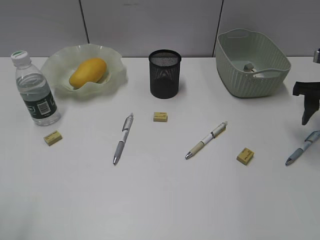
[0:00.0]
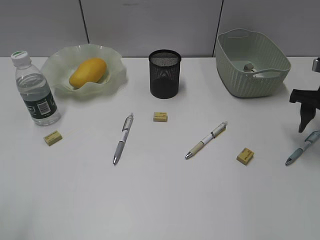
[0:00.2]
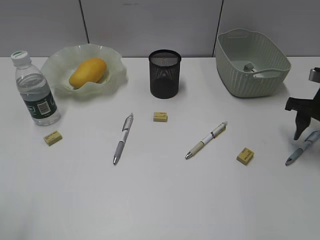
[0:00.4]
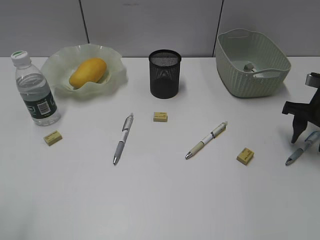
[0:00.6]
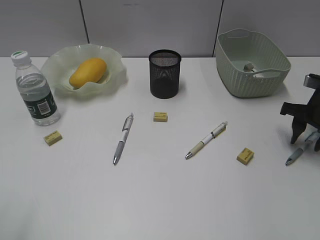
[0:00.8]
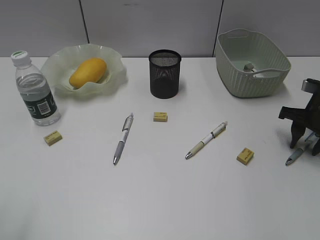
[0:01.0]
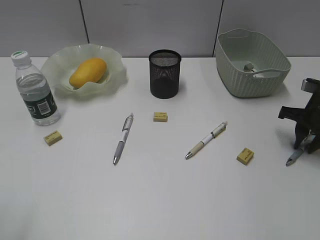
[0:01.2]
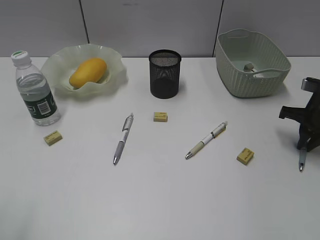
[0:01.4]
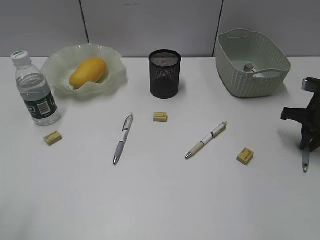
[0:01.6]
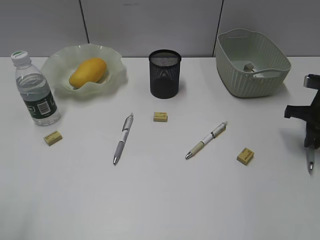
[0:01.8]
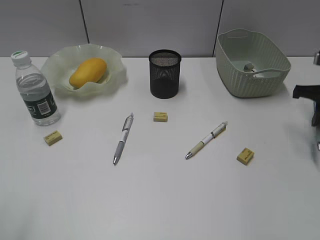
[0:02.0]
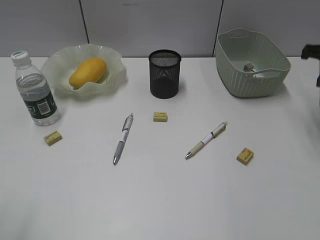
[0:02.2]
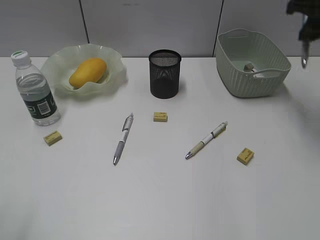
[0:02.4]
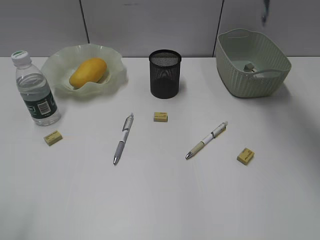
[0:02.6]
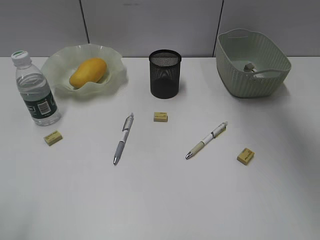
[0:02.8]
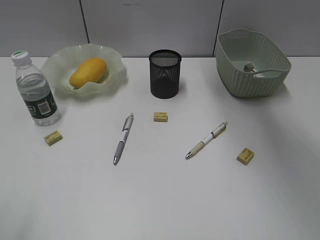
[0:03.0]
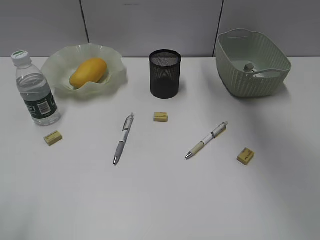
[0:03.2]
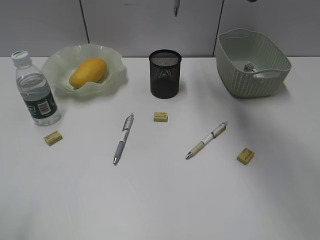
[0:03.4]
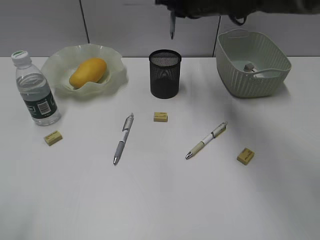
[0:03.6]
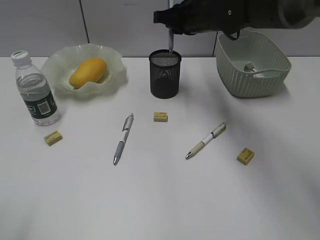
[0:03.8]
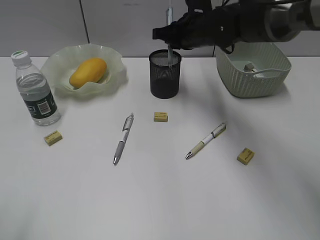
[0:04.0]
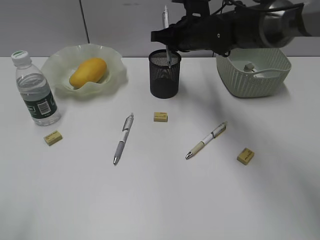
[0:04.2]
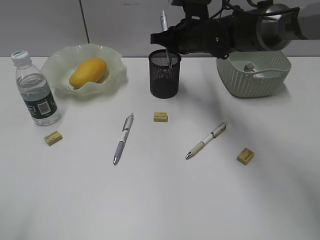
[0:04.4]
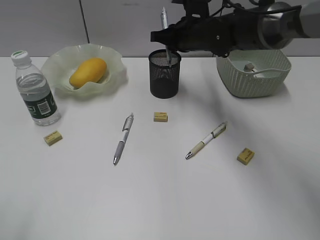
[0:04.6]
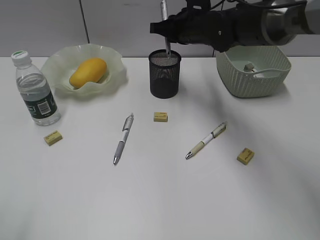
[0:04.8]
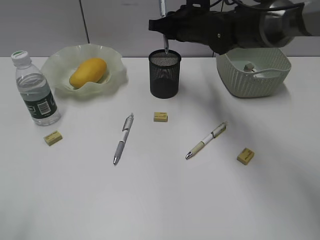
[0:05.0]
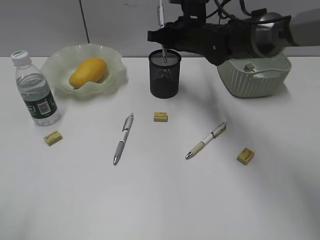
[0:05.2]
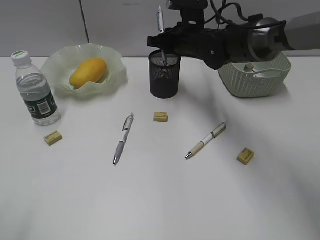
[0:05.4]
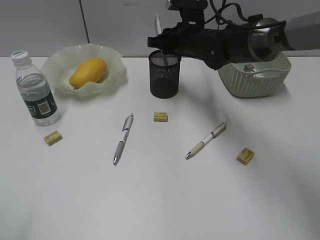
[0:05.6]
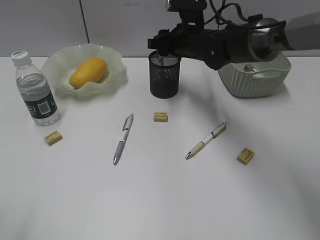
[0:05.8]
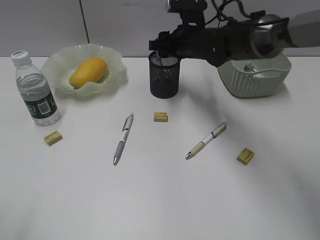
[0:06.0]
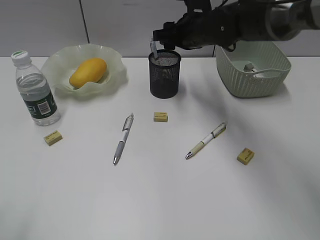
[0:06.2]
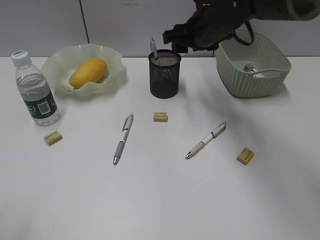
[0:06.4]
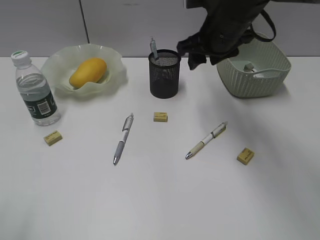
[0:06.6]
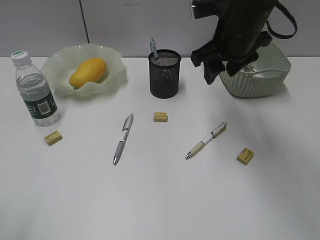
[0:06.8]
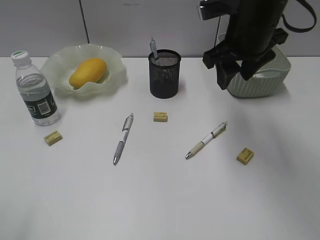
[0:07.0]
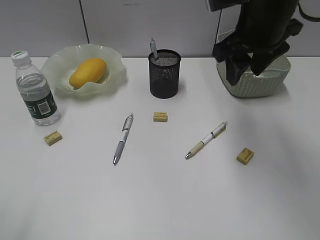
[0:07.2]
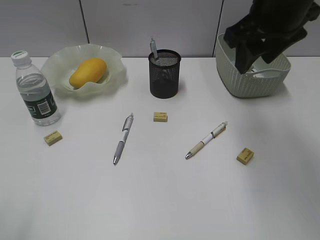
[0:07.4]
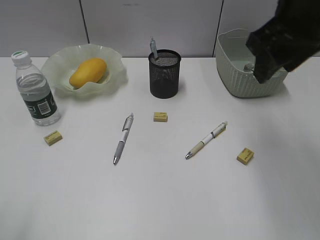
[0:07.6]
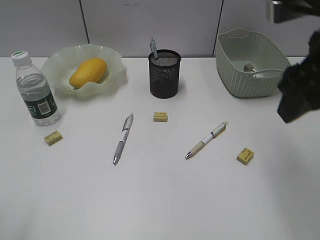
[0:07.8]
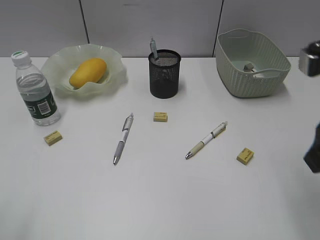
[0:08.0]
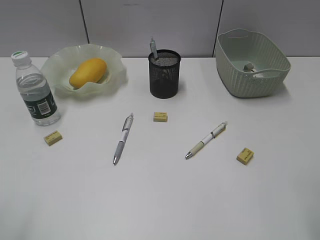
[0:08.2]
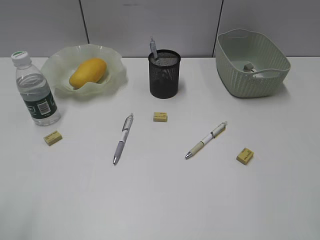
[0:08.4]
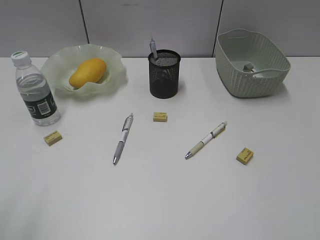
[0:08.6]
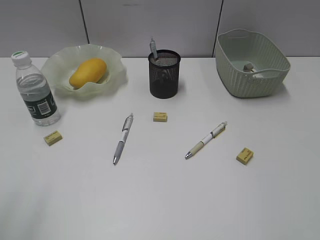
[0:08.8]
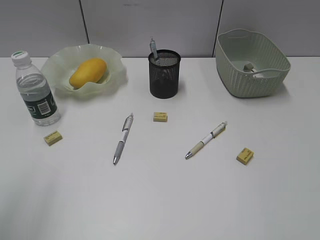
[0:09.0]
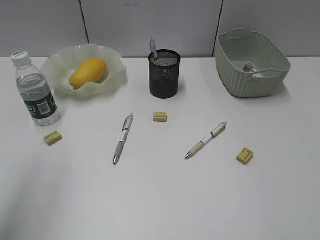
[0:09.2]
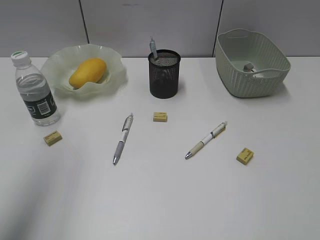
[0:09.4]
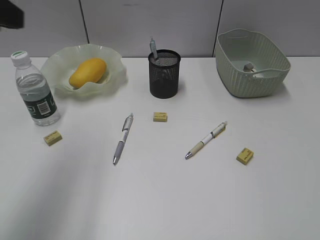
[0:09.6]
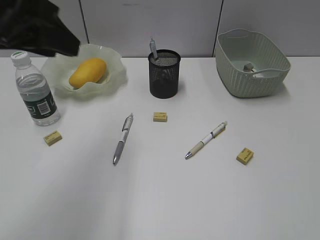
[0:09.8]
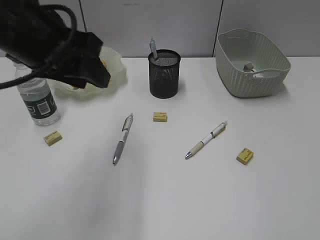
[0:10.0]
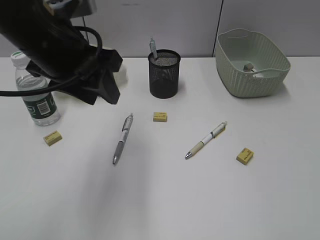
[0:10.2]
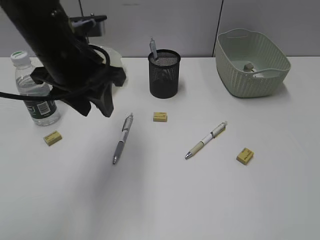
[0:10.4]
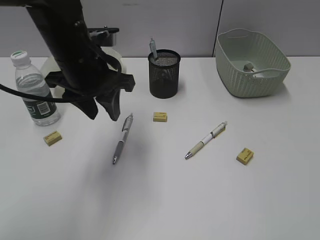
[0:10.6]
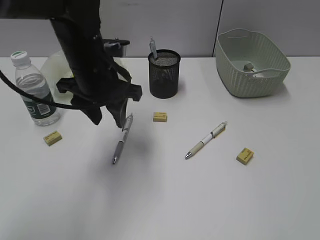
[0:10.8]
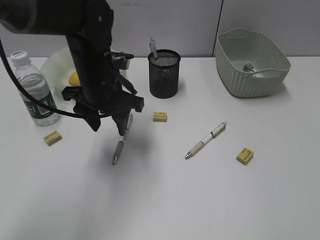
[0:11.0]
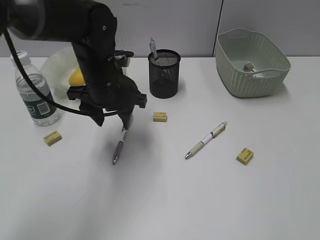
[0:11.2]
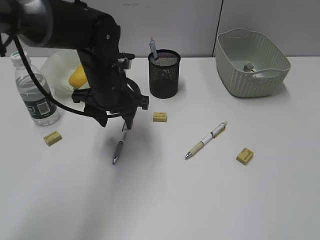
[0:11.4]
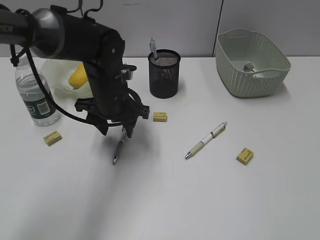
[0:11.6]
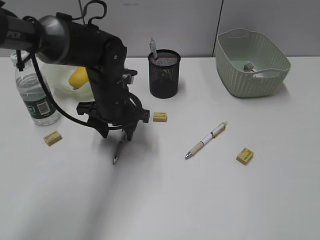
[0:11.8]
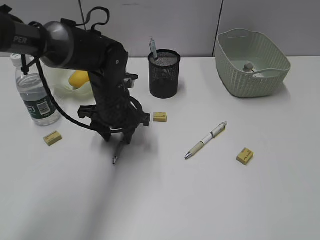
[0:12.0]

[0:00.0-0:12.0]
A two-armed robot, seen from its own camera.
Step, 0:01.6 to 0:06.0: Place the blue pen in pen holder with right gripper.
0:00.0 to 0:01.6: The right gripper shifts some 5 cm downward, and closes up.
0:01.6 to 0:03.0: The right gripper moves upward and to the left, about 35 cm.
0:03.0 to 0:04.4: The right gripper goes approximately 20 cm downward.
0:04.4 to 0:06.0: The right gripper opens its fingers.
0:06.0 to 0:07.6: The right gripper shifts roughly 25 cm backward, upward and to the right.
0:07.6 to 0:09.0: The right gripper travels backward and to the right by some 30 cm.
0:09.0 to 0:10.4: The left gripper shifts some 25 cm forward and to the right.
0:10.4 to 0:12.0: The left gripper is displaced downward and forward by roughly 15 cm.

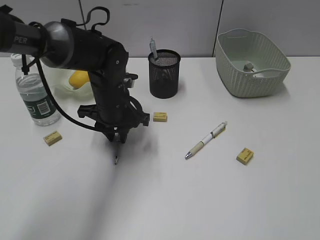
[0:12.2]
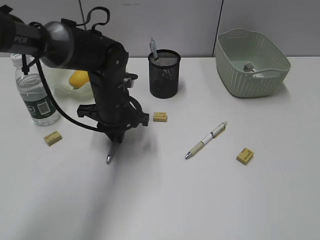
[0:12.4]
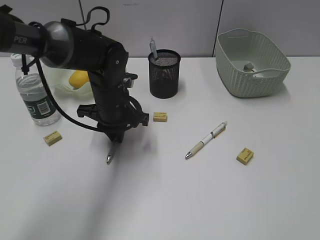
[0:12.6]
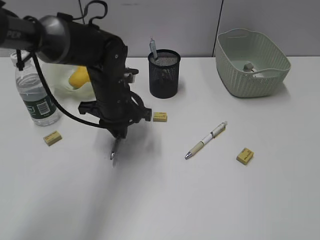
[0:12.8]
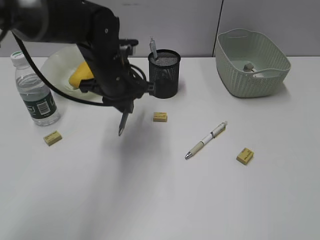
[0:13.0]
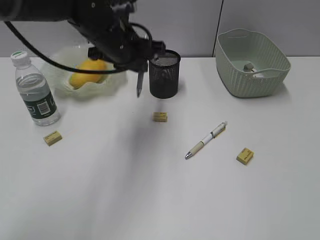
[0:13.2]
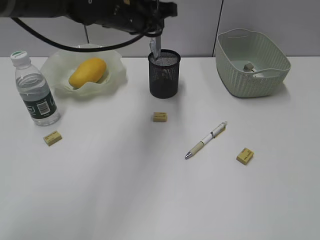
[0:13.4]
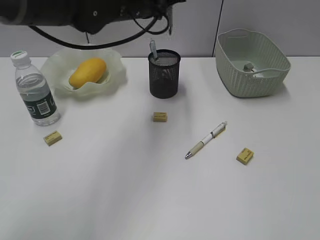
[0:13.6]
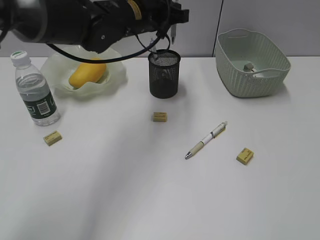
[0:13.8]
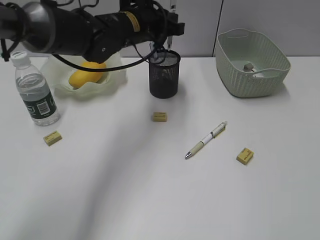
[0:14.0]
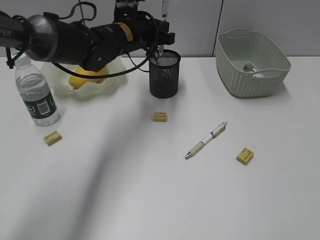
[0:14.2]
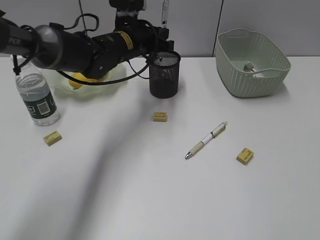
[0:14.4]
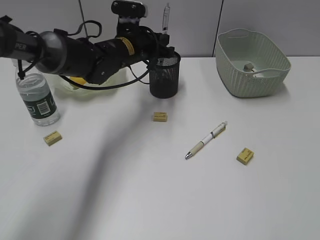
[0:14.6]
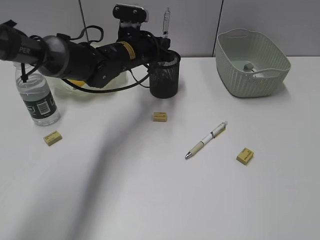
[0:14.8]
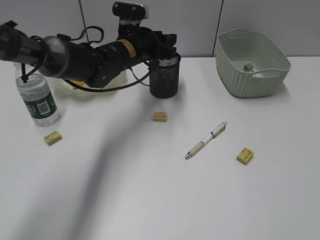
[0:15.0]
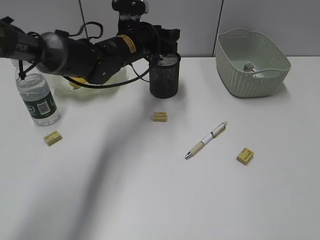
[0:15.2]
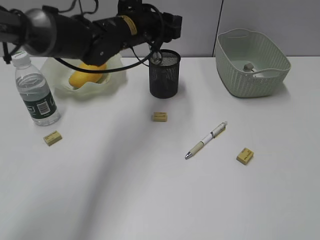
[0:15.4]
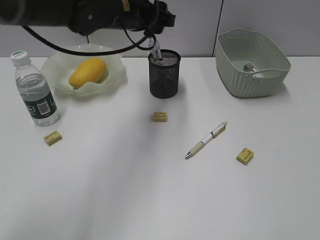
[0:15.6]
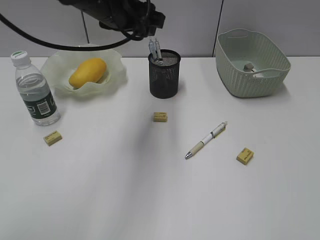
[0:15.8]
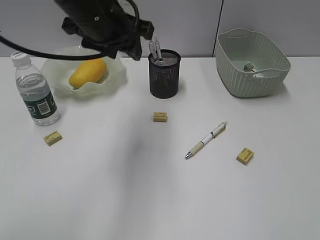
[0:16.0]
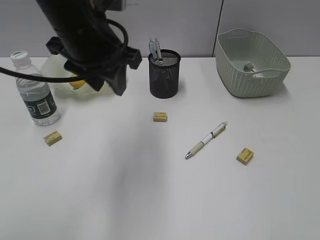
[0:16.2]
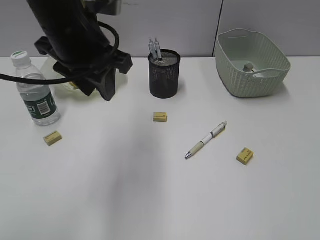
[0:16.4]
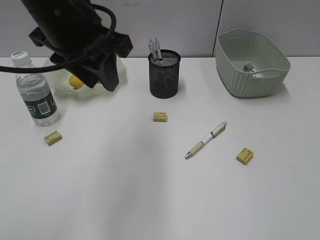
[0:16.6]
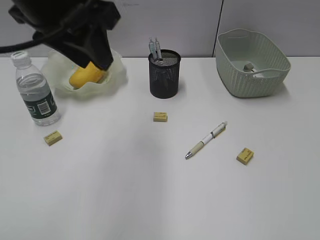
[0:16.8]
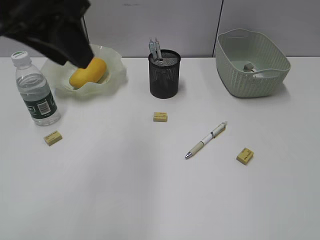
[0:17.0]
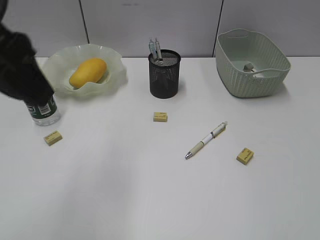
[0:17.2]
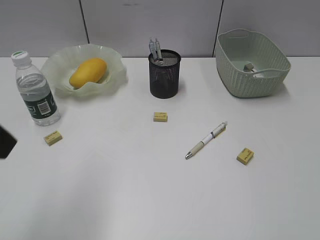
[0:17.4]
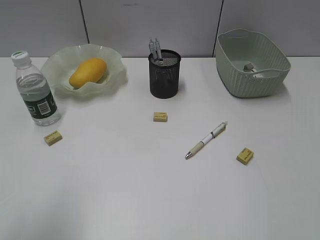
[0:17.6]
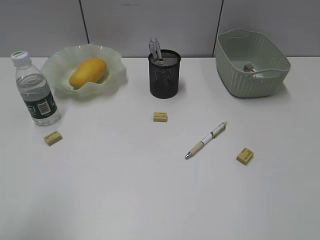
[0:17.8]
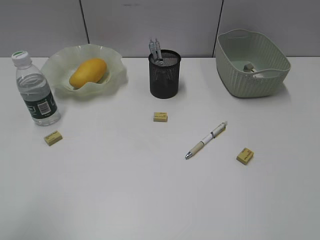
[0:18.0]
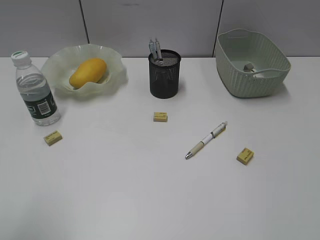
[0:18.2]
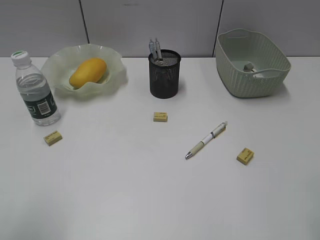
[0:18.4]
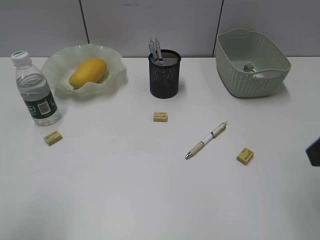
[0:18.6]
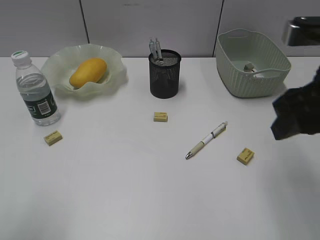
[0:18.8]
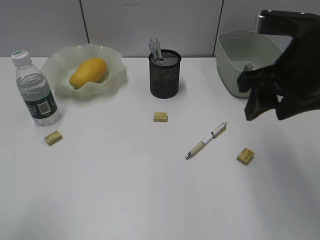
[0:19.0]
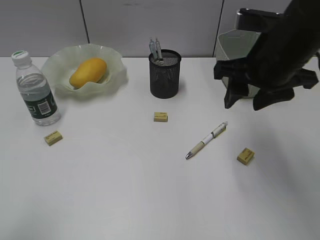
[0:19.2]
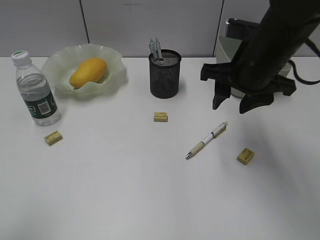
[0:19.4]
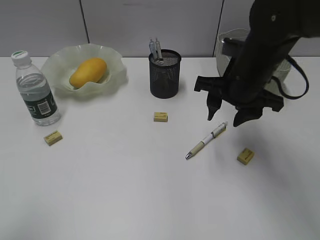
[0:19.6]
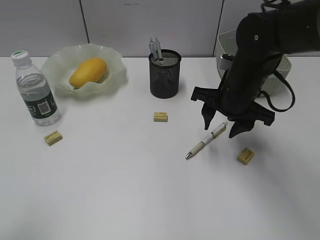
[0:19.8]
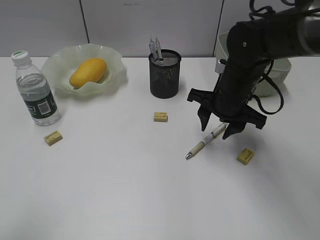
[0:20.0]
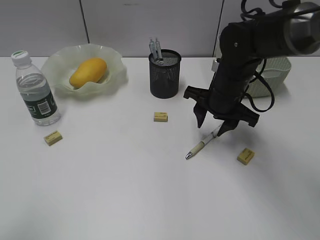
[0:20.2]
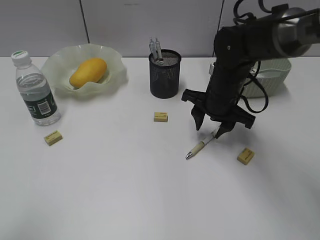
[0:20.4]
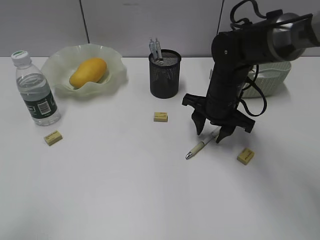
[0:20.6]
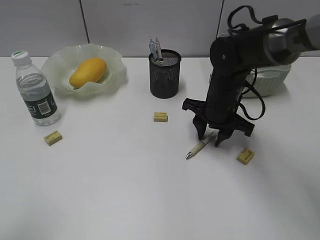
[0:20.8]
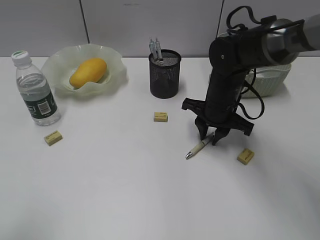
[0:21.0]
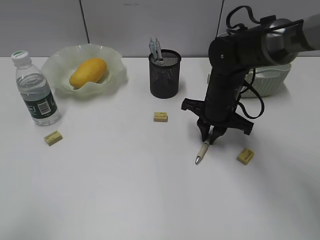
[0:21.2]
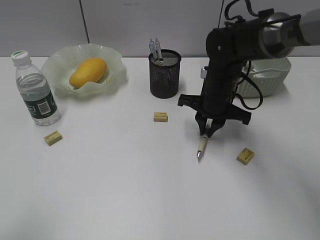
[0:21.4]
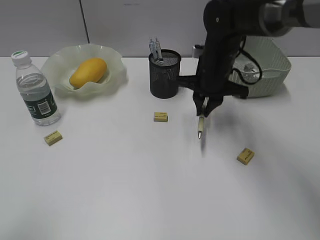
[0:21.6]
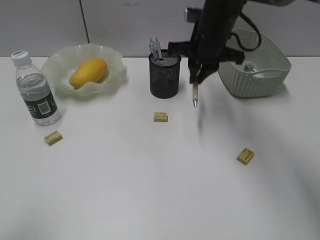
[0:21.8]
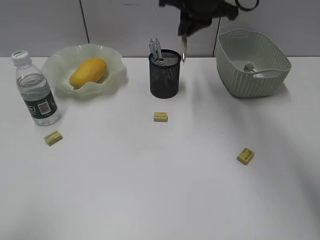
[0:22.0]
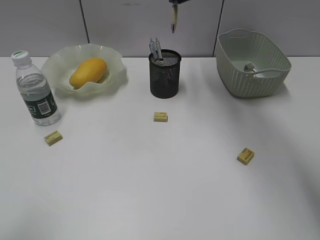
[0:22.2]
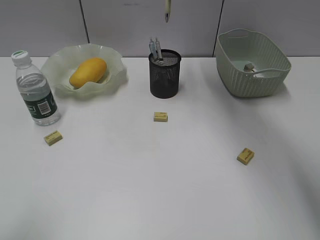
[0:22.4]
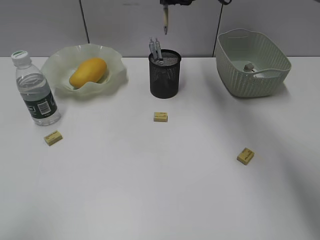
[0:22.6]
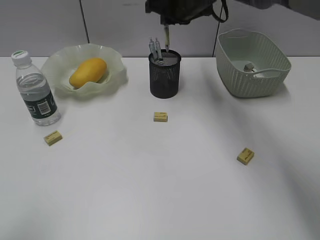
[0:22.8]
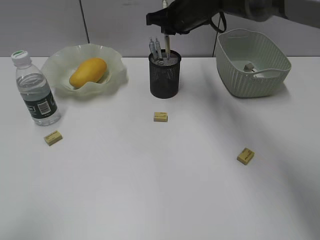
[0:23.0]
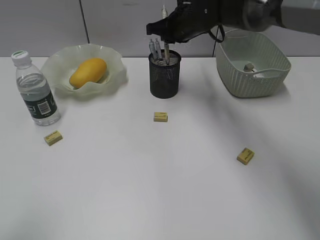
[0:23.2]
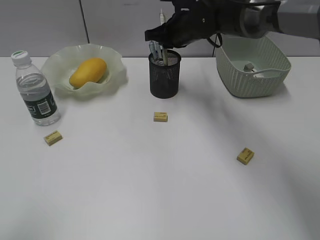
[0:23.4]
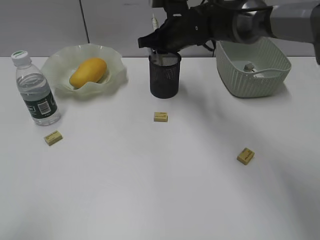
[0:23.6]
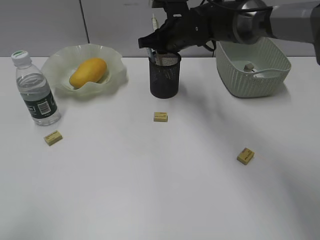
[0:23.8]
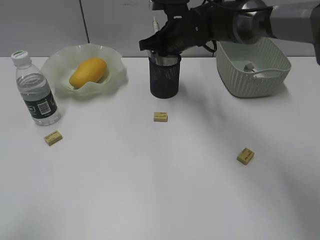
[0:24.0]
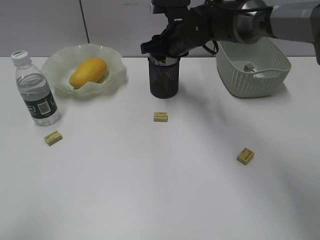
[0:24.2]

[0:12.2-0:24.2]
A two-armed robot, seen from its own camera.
Step, 0:12.8 to 0:15.2: Place the gray pen in pen holder with left gripper.
Step, 0:15.4 to 0:21.2: Grasp the yellow pen with right gripper.
0:12.2 to 0:13.8: The left gripper travels upward by some 15 cm.
0:13.8 to 0:15.2: The left gripper travels downward by about 5 cm, and opens its fingers.
0:15.2 to 0:16.6: The left gripper heads backward and upward, covering some 20 cm.
0:16.6 to 0:18.2: The left gripper is displaced backward and to the left by about 25 cm. Meanwhile the right gripper shifts by approximately 5 cm.
0:18.2 to 0:19.8: The right gripper travels forward, downward and to the left by some 35 cm.
0:19.8 to 0:21.2: The right gripper is displaced downward by about 5 cm, and closes up.
0:21.2 to 0:22.6: The right gripper goes approximately 20 cm upward and forward.
0:22.6 to 0:24.2: The right gripper heads downward, covering roughly 10 cm, and opens up.
